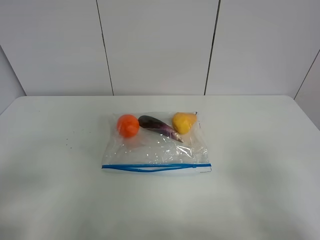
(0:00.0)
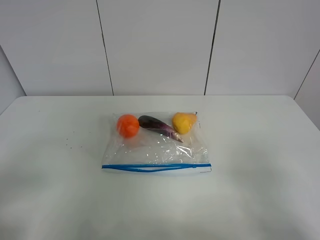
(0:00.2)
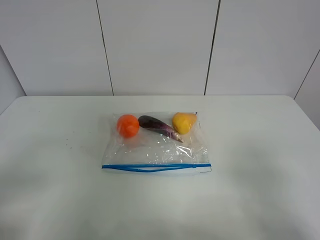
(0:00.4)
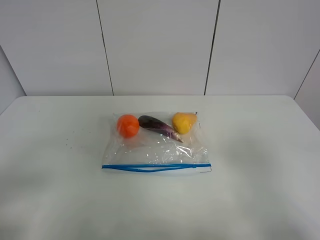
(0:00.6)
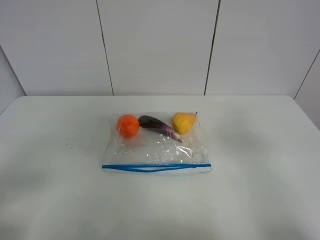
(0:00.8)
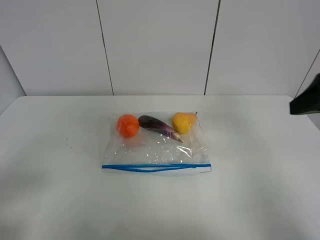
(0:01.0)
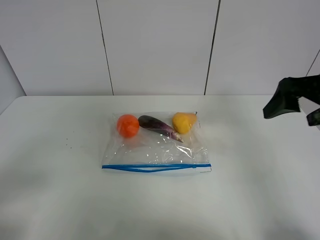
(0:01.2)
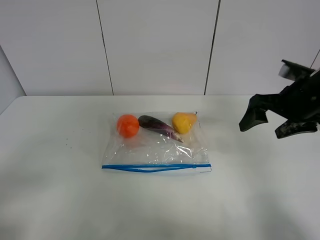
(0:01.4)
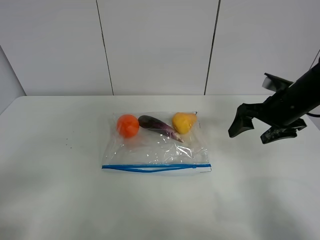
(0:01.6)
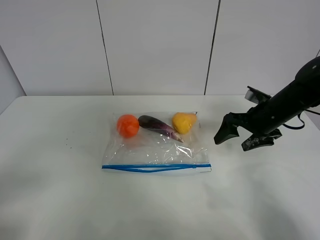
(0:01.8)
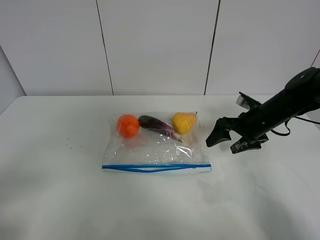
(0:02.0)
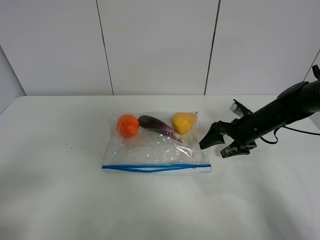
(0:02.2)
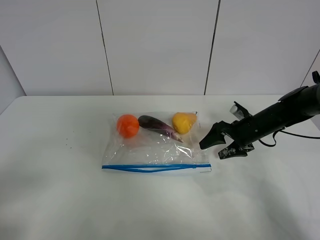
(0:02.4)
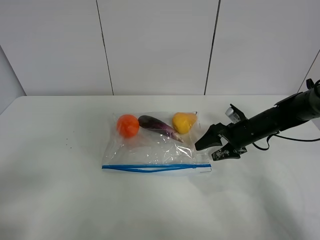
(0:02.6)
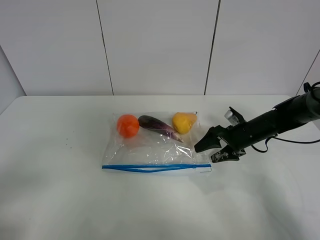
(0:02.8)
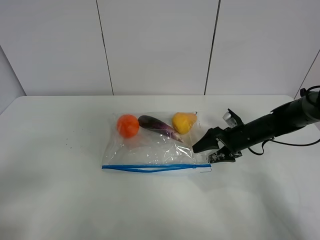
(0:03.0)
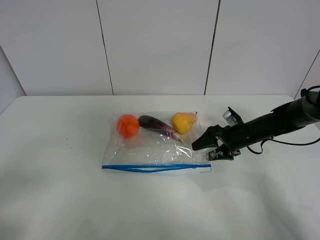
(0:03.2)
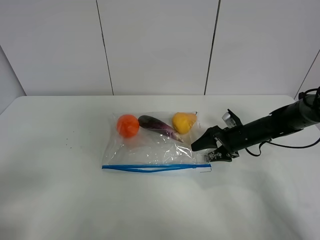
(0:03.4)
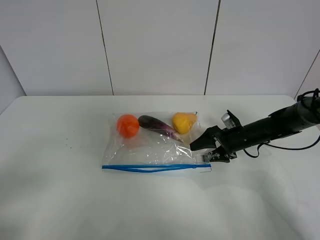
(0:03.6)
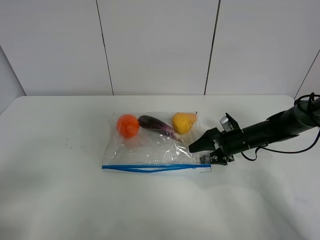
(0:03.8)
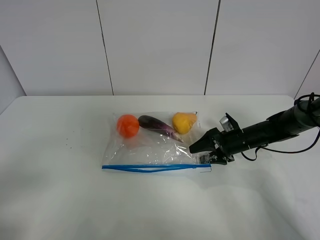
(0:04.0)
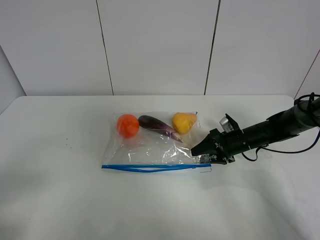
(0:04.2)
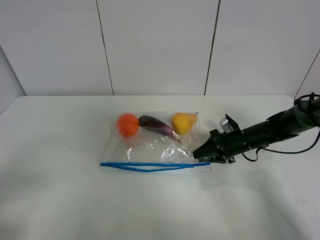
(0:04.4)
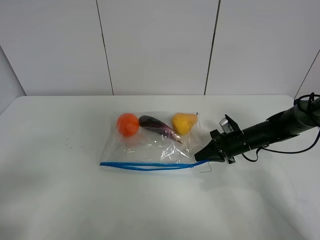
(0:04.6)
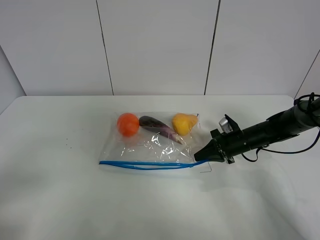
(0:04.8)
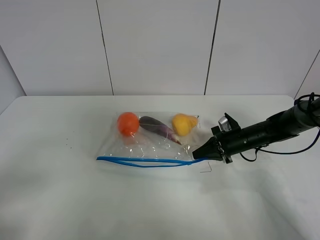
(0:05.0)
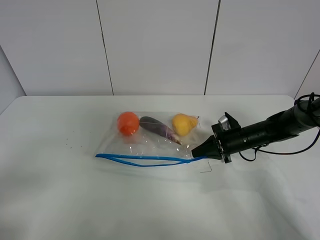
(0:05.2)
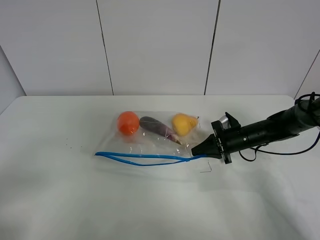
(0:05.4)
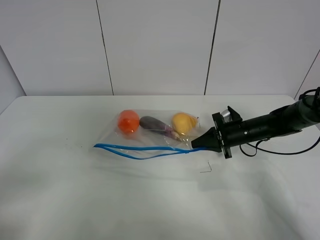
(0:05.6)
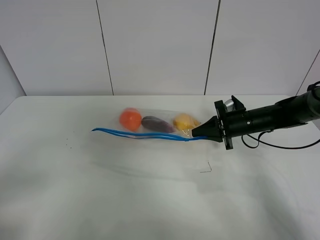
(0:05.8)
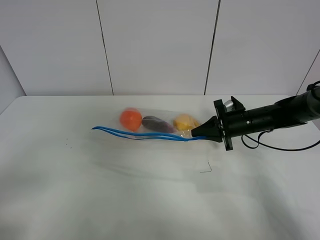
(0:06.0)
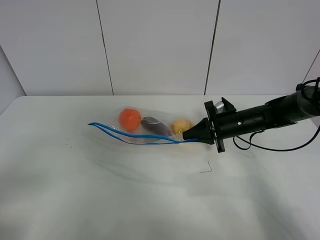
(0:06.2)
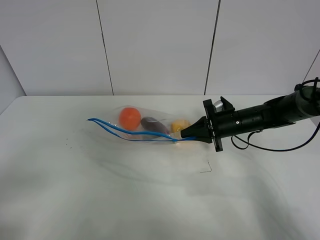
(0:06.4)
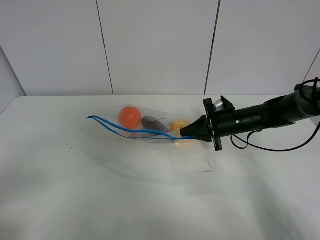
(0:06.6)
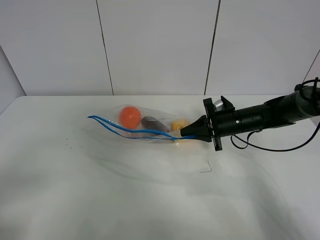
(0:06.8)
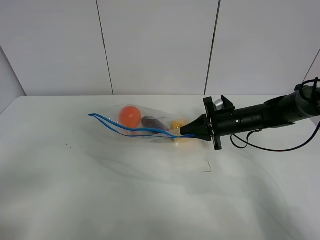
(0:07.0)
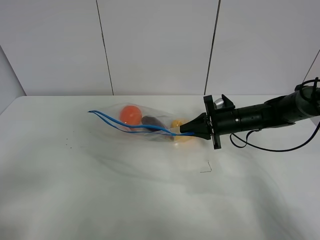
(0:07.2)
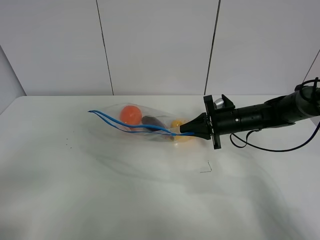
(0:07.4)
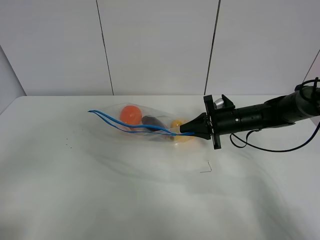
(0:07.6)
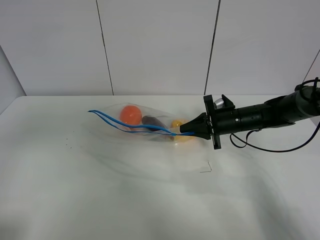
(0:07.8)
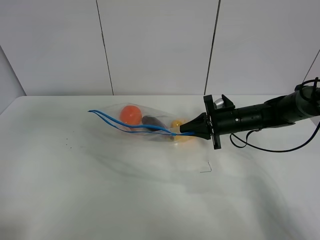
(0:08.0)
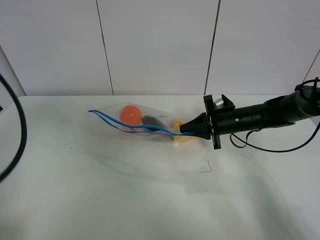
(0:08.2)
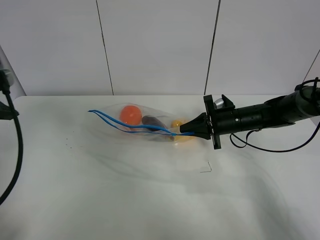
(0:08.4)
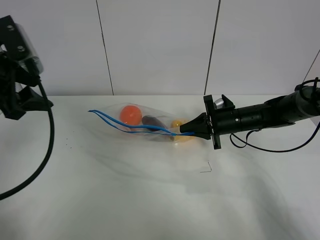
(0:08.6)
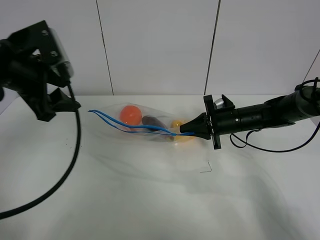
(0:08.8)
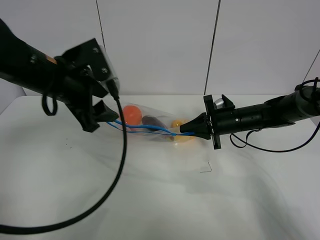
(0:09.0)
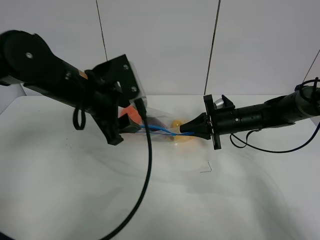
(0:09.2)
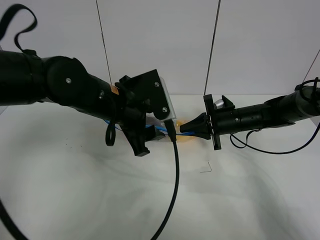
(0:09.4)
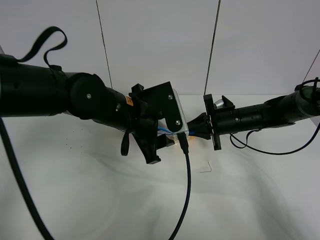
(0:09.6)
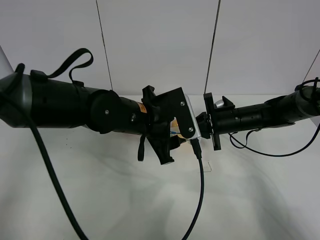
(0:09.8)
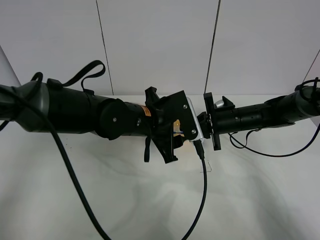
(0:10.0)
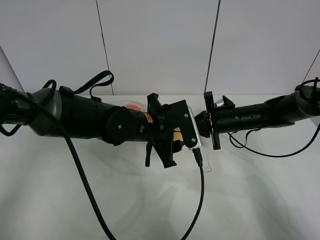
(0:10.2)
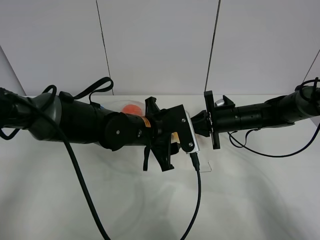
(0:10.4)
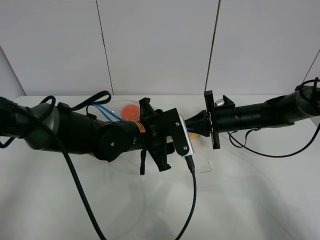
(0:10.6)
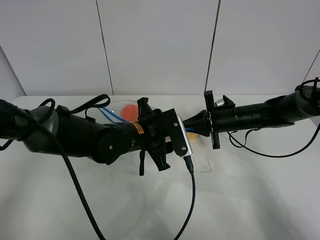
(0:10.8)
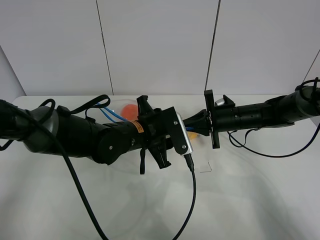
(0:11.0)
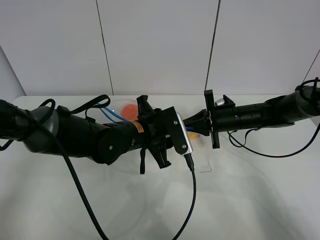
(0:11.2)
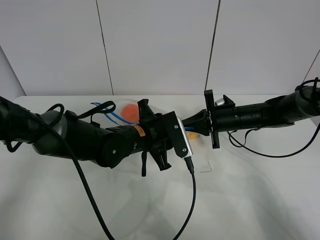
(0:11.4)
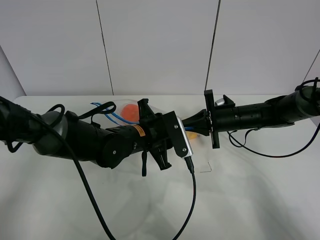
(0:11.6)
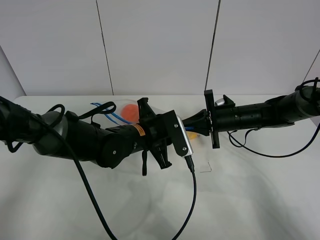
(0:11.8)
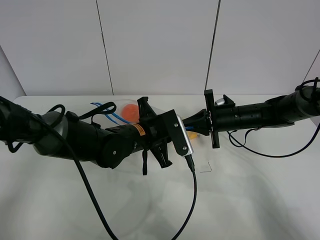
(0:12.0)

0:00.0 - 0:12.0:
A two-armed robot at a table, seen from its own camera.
Step, 0:00.0 - 0:04.6: Grasp the fruit bag with right gripper.
Step, 0:04.8 - 0:06.0: Lift the fruit bag with your right gripper.
0:00.0 - 0:01.6: The right gripper heads forward, covering about 30 cm.
0:01.6 - 0:03.0: The right gripper is displaced downward by some 15 cm.
0:03.0 - 0:04.4: The right gripper closes up.
0:04.4 - 0:06.0: The right gripper heads upward, covering about 5 cm, and closes up.
0:06.0 - 0:07.6: The left gripper travels upward by about 5 cm.
0:07.6 - 0:09.0: The left gripper moves forward and to the right, some 30 cm.
0:09.0 - 0:10.4: The left gripper moves to the right and downward, some 15 cm.
0:10.4 - 0:12.0: The left gripper closes its fingers.

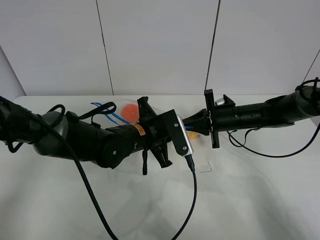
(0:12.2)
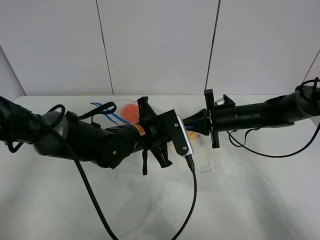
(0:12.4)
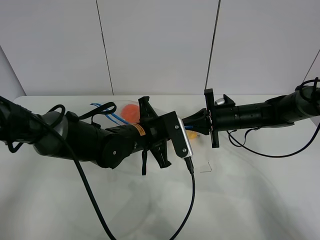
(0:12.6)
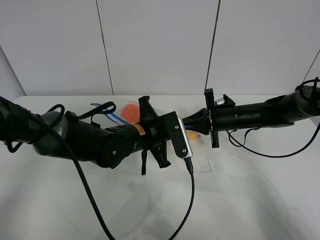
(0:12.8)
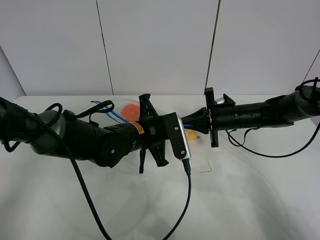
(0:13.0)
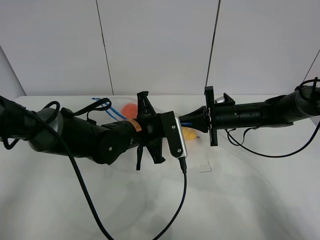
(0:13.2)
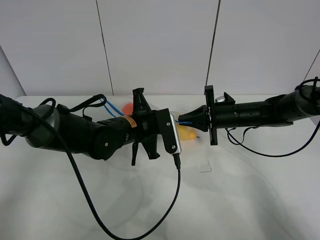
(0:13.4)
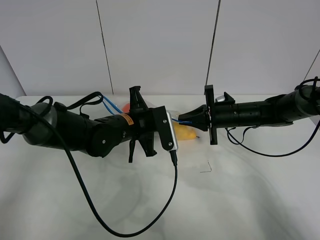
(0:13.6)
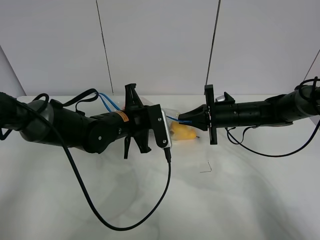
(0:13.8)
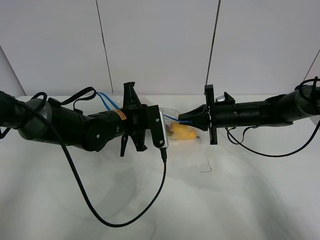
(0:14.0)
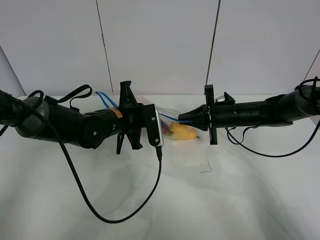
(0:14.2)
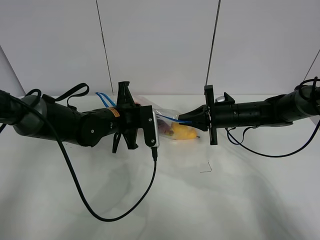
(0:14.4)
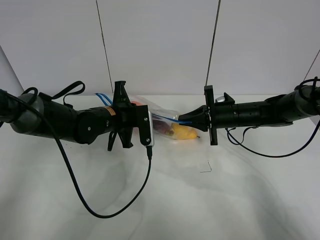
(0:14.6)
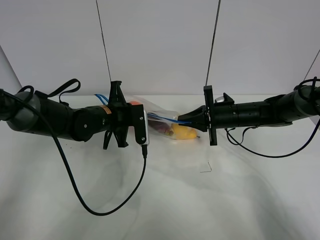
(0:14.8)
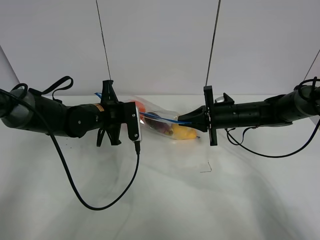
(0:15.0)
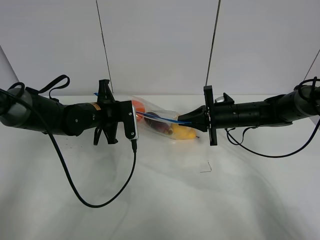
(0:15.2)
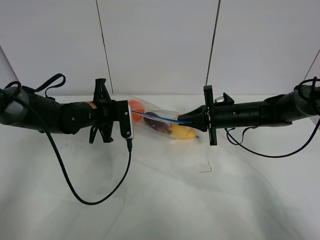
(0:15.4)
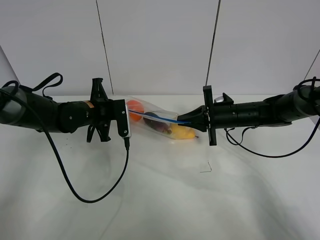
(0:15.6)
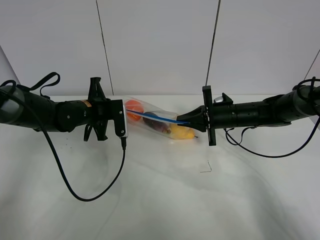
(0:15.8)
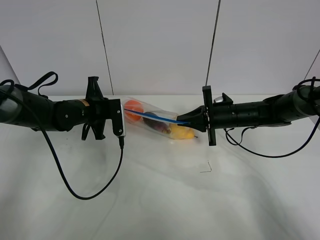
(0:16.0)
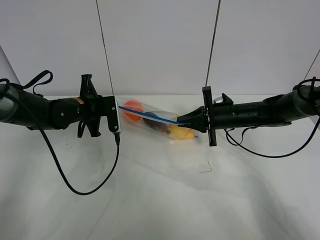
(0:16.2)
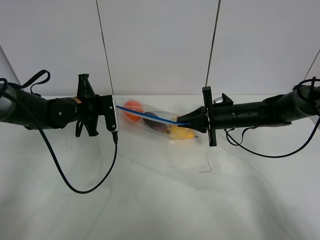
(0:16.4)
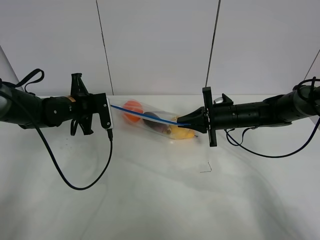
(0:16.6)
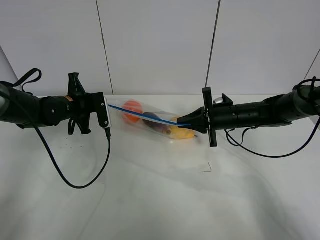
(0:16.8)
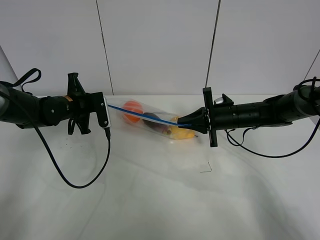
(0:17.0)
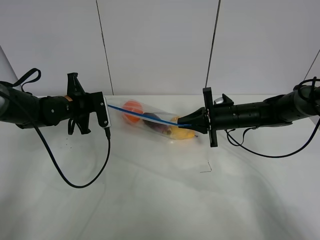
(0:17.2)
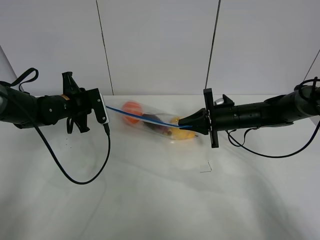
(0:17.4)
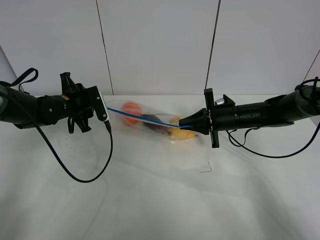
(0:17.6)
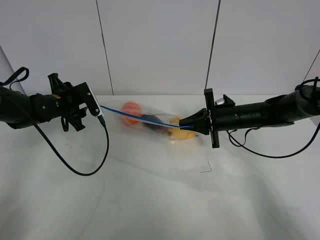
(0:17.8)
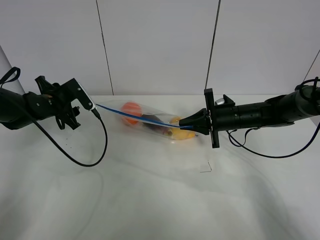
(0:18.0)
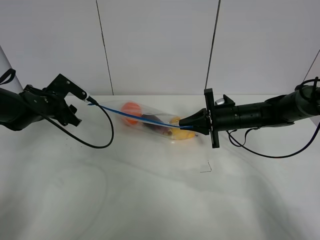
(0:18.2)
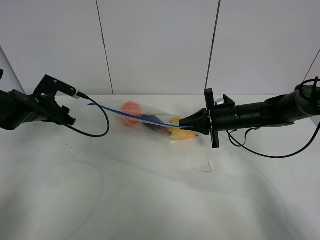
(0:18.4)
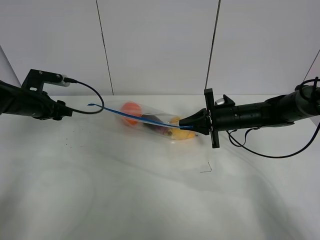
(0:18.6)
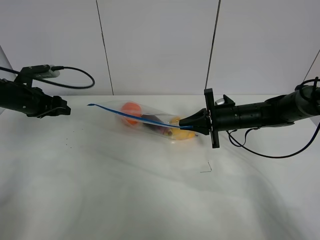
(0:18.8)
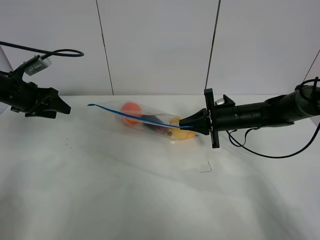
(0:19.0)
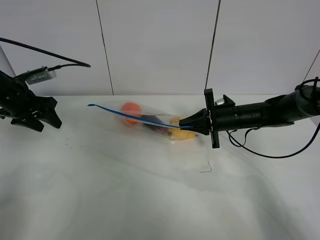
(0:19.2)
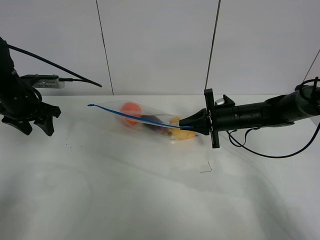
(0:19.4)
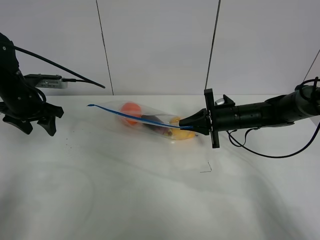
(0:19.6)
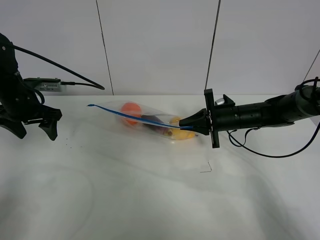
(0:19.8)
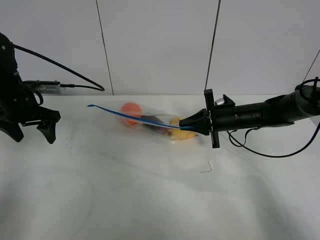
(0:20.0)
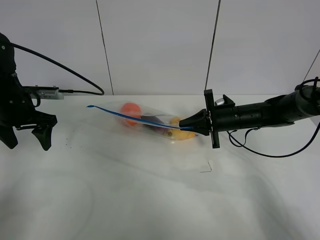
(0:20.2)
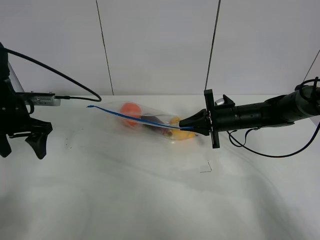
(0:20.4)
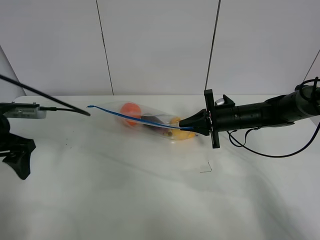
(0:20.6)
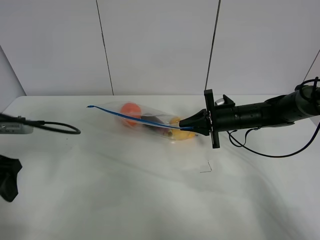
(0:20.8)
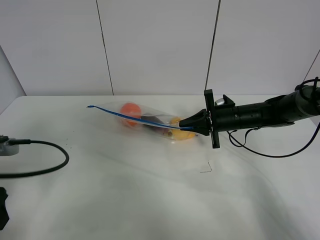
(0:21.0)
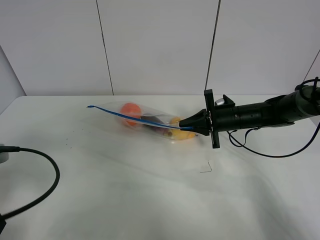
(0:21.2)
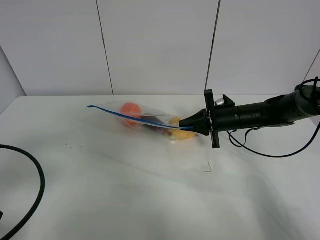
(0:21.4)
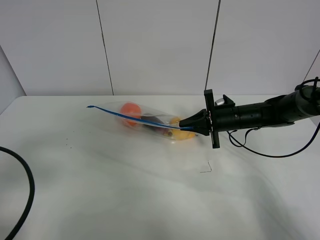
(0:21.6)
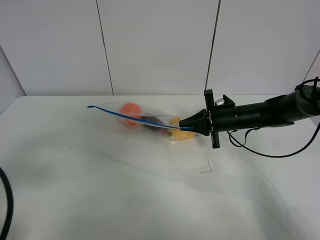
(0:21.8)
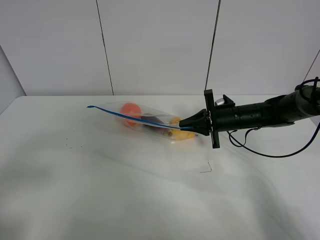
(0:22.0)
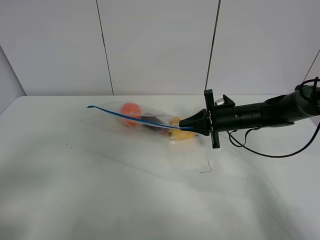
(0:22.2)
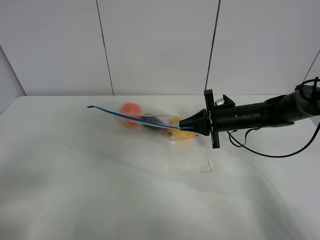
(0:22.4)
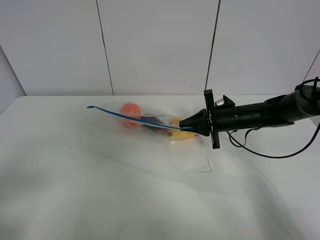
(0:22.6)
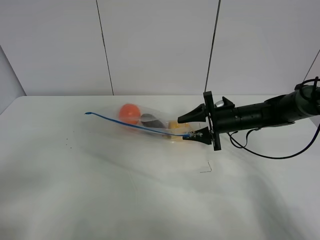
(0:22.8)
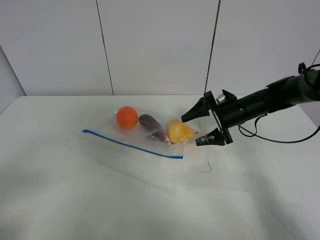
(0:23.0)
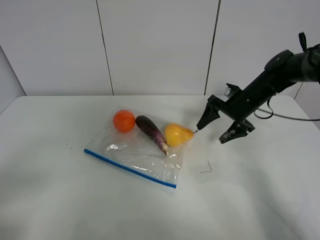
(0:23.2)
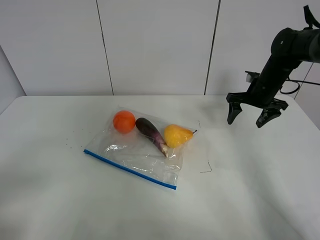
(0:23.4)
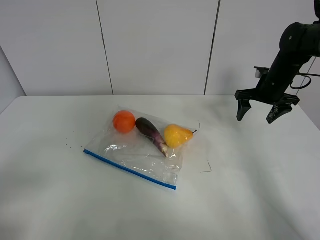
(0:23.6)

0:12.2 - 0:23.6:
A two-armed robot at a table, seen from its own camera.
Step, 0:12.2 - 0:17.8: Pull the fruit bag with left gripper.
0:12.2 - 0:13.6: The grippers make only small movements.
0:13.6 - 0:15.0: The left gripper travels to the left by about 5 cm.
0:15.0 - 0:16.4: The left gripper shifts about 5 cm to the left.
0:16.4 - 0:17.8: The left gripper goes approximately 5 cm to the left, and opens its fingers.
0:17.8 - 0:19.4: The left gripper shifts approximately 5 cm upward and to the left.
0:19.4 - 0:20.8: The left gripper travels backward by approximately 15 cm.
0:20.8 - 0:22.2: The left gripper goes some 20 cm backward.
0:22.2 - 0:23.6: The right gripper travels to the right, upward and forward by some 15 cm, and opens up.
